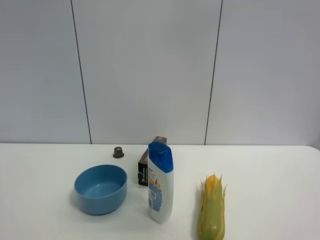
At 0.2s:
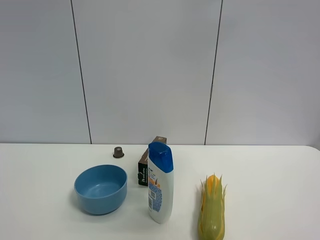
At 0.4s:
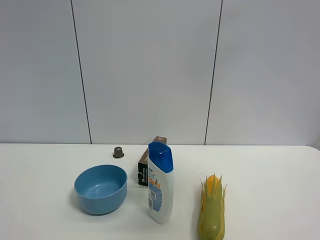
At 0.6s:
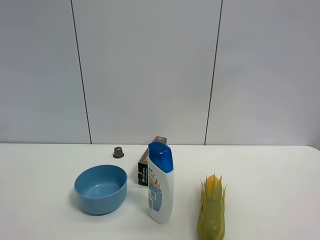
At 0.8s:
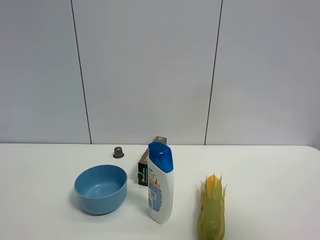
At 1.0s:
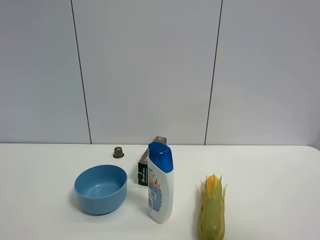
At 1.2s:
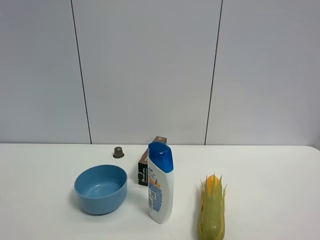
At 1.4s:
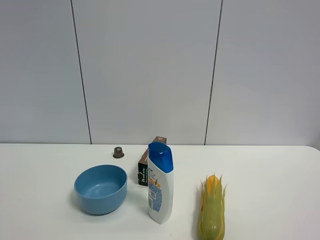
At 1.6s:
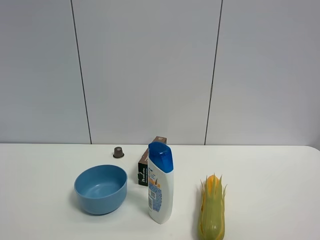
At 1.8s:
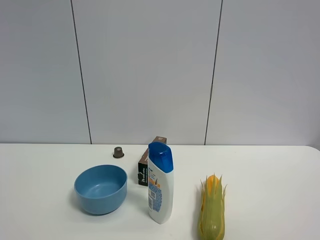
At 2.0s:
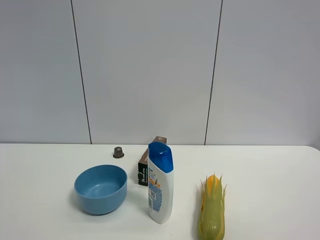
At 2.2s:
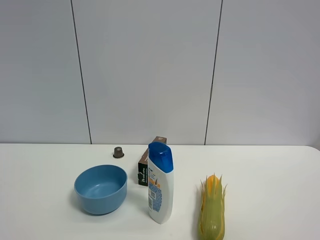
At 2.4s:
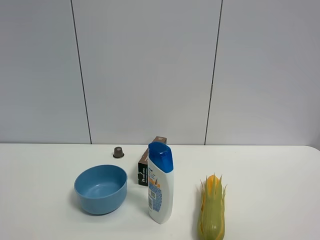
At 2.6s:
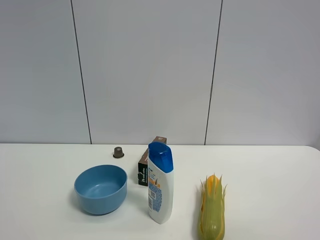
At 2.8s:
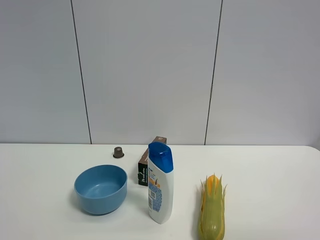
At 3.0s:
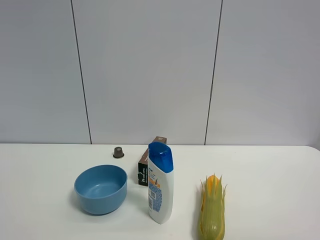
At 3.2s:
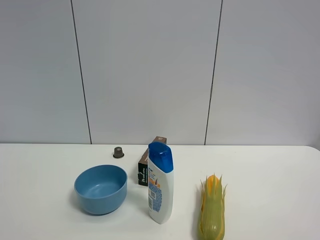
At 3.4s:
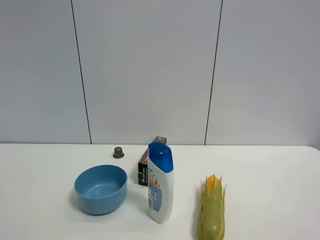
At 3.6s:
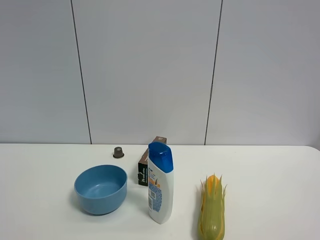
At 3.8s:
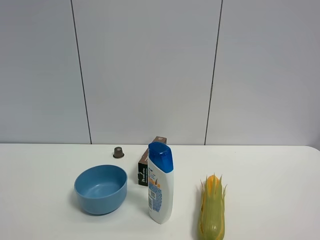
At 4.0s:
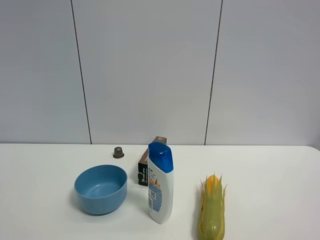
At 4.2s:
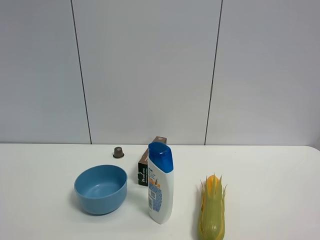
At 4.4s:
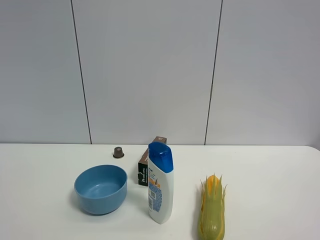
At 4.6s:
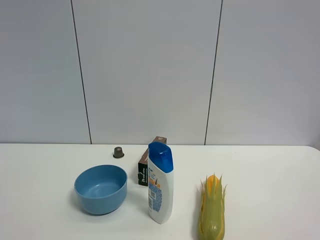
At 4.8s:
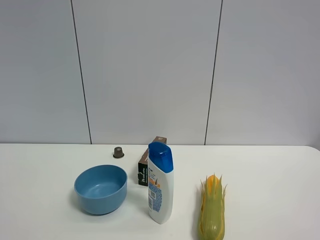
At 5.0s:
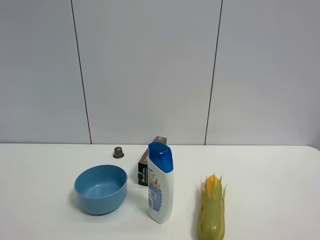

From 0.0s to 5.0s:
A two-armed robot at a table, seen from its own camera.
Task of the whole recording: the gripper move the object.
From 0.0s to 1.6s: The right gripper travels downward and backward by some 30 cm.

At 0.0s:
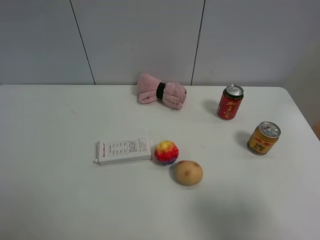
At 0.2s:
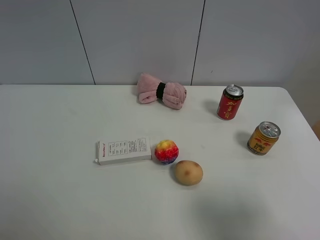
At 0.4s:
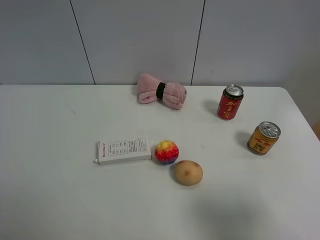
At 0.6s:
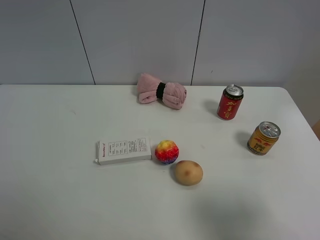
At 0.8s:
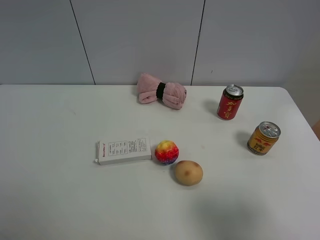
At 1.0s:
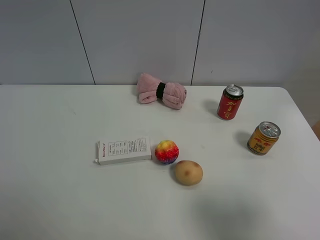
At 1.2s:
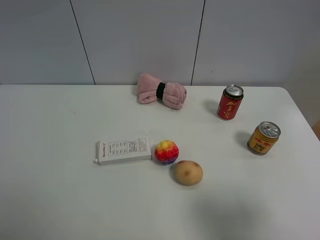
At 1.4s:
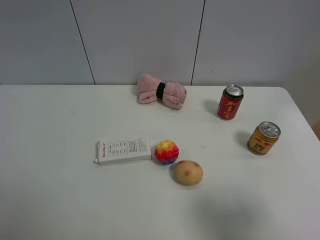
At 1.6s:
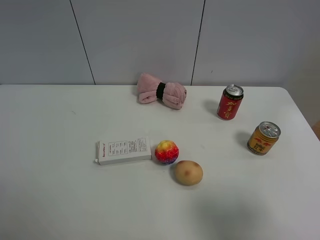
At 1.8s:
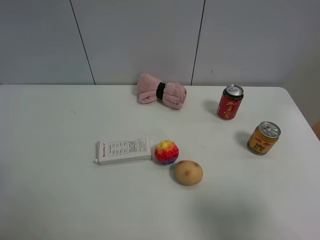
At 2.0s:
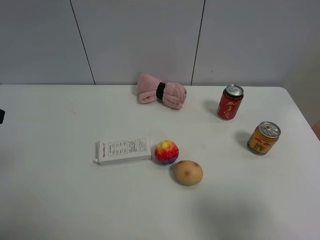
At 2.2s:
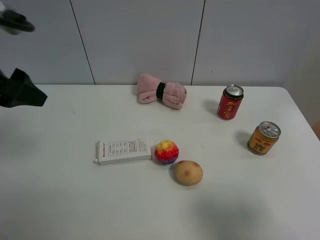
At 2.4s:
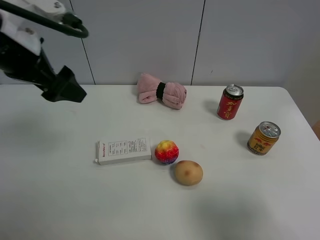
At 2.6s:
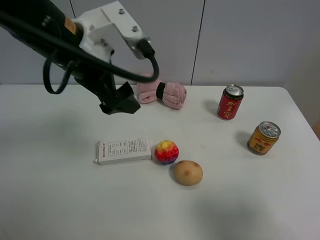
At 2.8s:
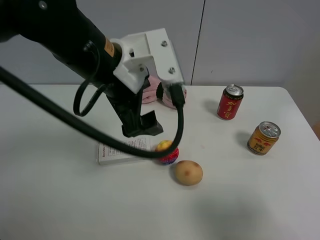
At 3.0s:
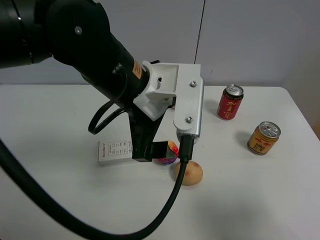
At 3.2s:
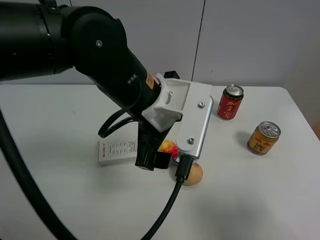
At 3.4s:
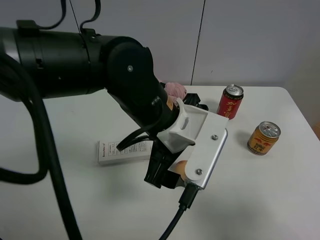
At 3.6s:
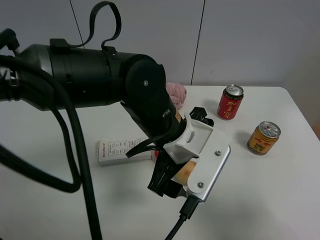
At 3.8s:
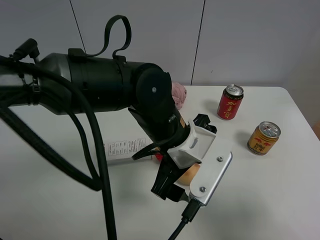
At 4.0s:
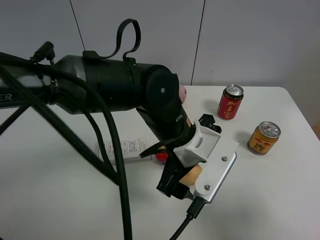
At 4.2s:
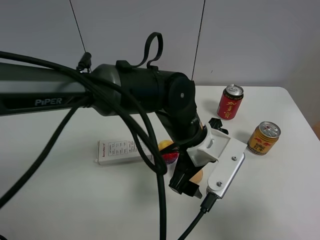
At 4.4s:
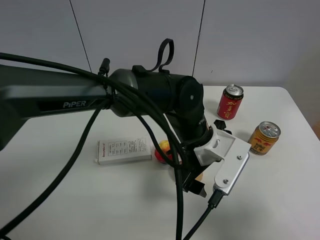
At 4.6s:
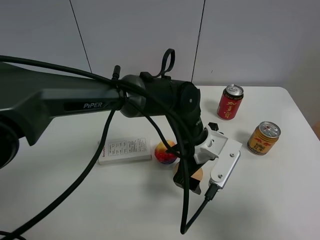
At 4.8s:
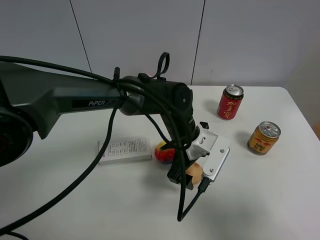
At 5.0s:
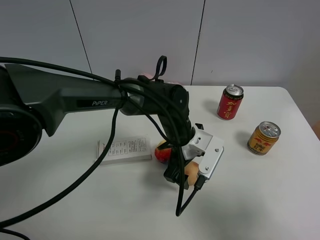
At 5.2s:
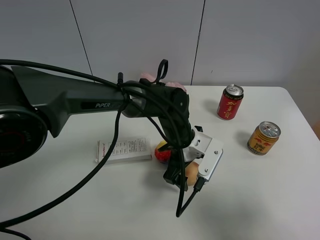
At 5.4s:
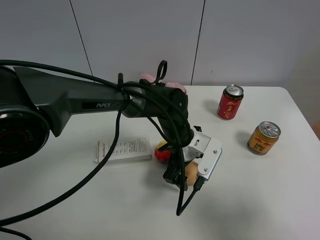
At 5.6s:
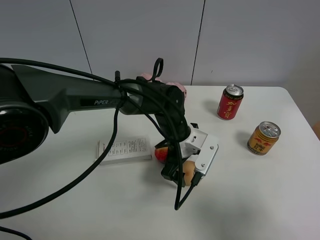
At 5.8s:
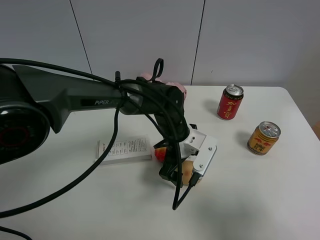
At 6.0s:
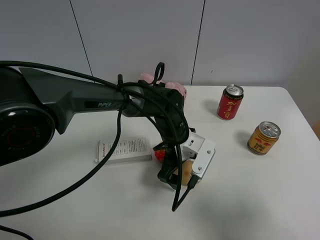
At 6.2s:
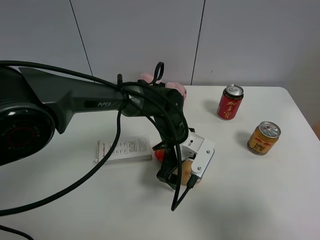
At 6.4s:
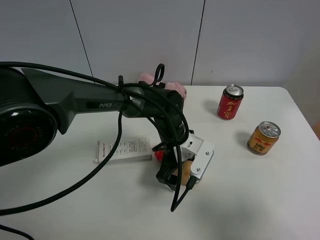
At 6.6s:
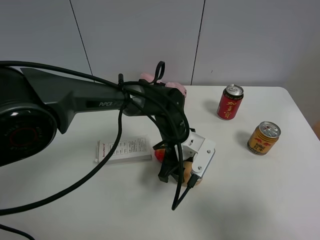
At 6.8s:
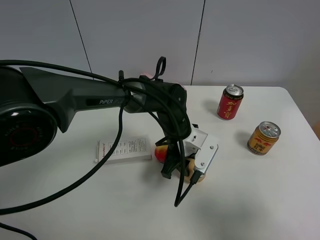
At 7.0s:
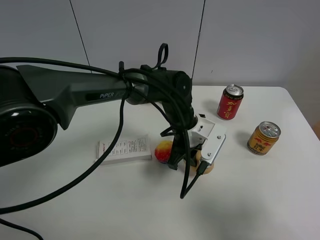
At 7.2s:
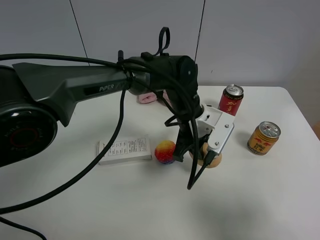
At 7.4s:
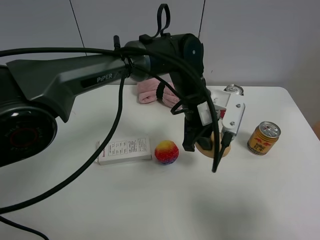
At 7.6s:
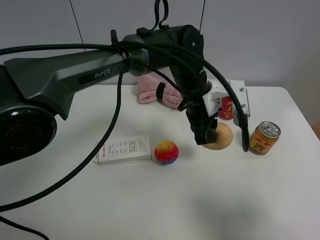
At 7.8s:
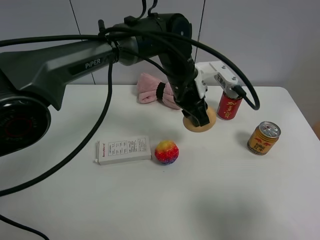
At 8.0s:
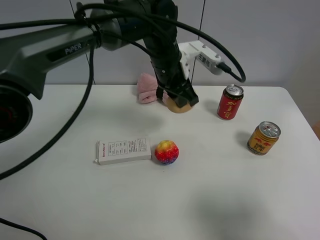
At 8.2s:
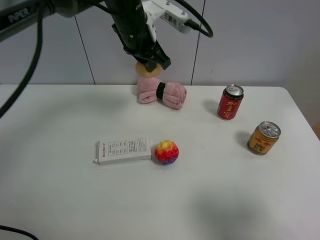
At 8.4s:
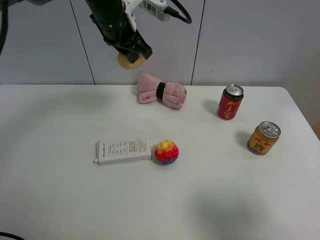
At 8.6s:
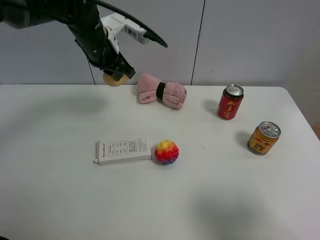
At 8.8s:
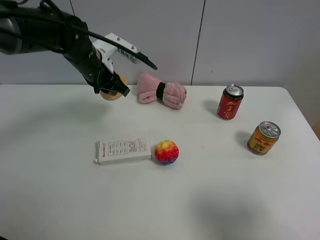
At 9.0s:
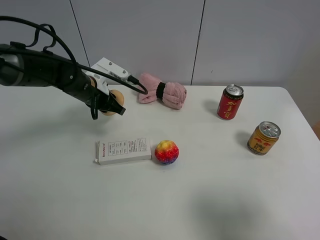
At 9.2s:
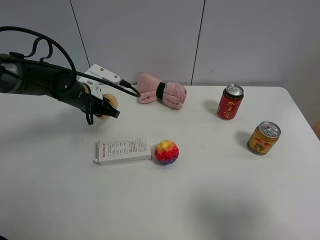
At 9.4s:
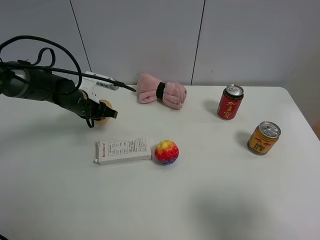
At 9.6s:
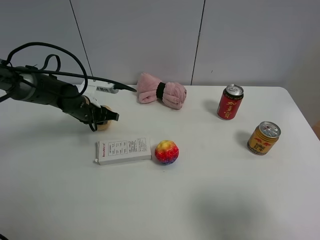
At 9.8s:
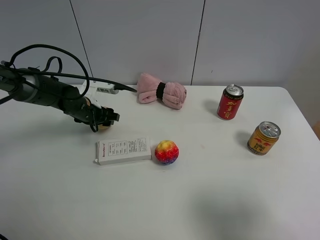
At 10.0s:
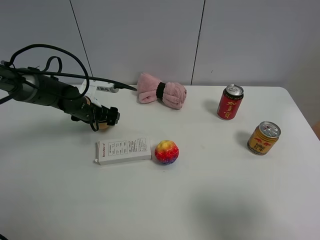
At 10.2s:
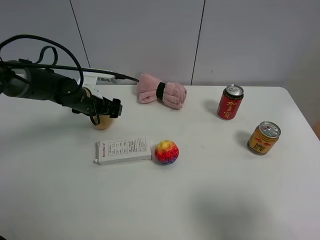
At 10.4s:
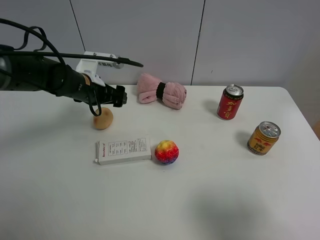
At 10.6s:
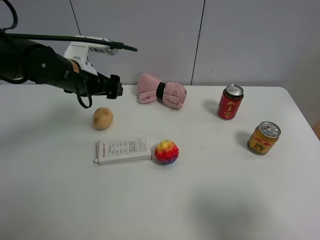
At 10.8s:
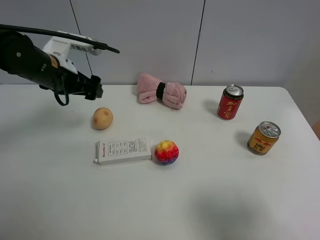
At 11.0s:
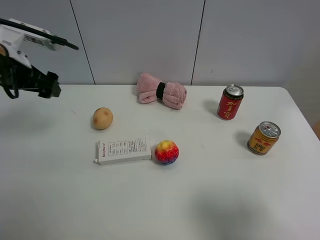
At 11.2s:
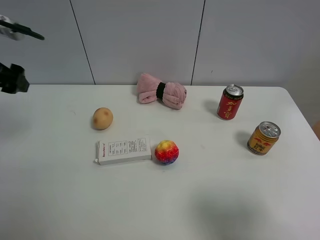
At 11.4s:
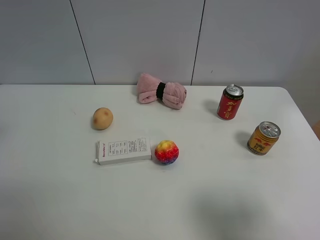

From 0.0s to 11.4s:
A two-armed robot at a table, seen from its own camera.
Task of the whole recording: the gripper move the object.
Step, from 0.0s to 6.6s: Grasp the egg yolk pastry with the left gripper.
Step, from 6.8s to 10.8s: Place the egg yolk pastry on the table with the left gripper.
From 0.0s to 1.4s: Neither gripper changes place.
From 1.4s to 2.8s: The left gripper moves to the right and forward, roughly 35 cm.
From 2.8s to 4.2s: The left gripper goes about 20 cm downward and to the right.
From 4.2s to 5.6s: The left gripper moves downward and forward, about 10 cm.
From 5.6s to 7.2s: The left gripper travels upward by about 5 cm, and closes.
From 7.2s to 8.6s: The left gripper travels to the left, upward and forward by approximately 25 cm.
From 8.6s to 10.0s: The left gripper is displaced downward and to the left by approximately 20 cm, and opens up.
From 10.0s to 11.4s: The left gripper moves upward, backward and to the left, about 35 cm.

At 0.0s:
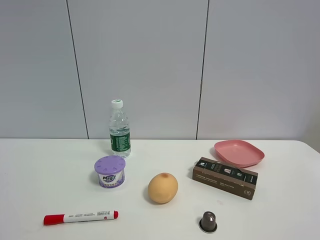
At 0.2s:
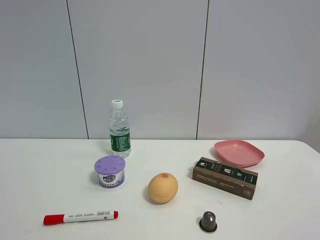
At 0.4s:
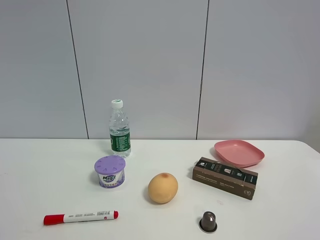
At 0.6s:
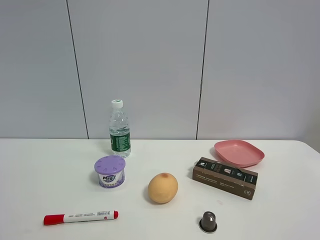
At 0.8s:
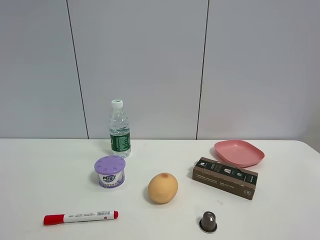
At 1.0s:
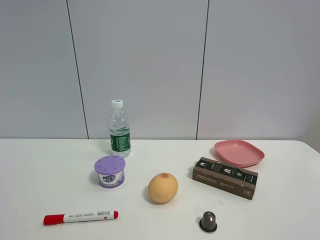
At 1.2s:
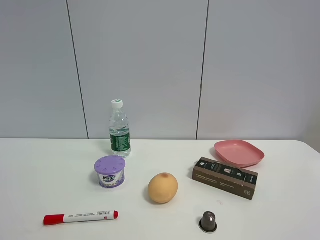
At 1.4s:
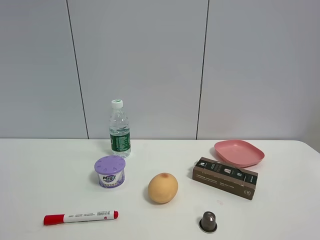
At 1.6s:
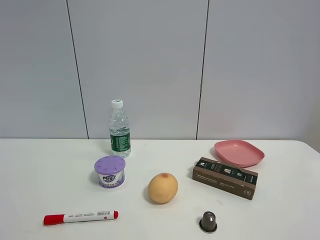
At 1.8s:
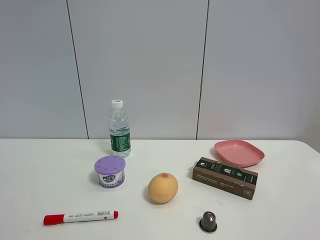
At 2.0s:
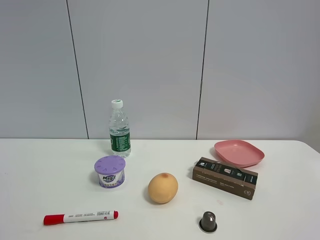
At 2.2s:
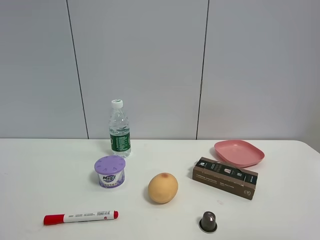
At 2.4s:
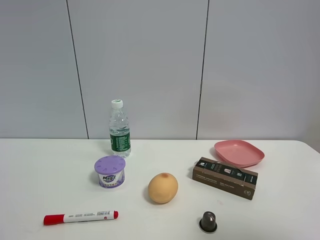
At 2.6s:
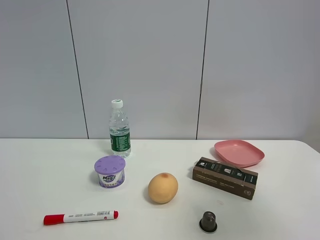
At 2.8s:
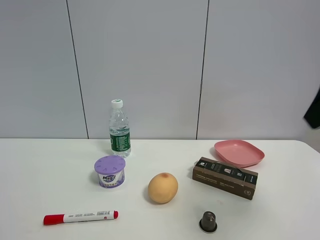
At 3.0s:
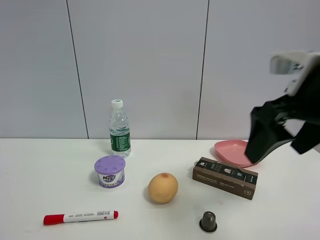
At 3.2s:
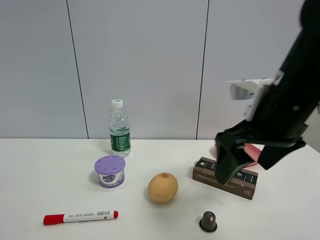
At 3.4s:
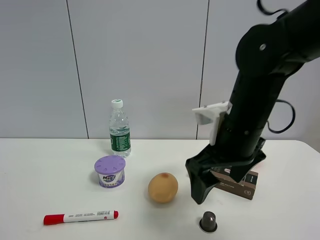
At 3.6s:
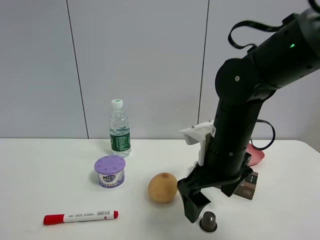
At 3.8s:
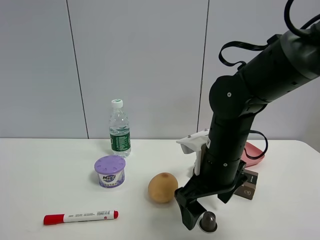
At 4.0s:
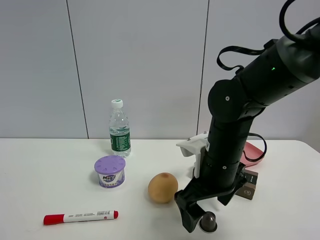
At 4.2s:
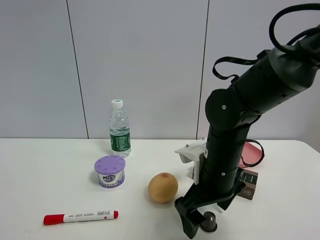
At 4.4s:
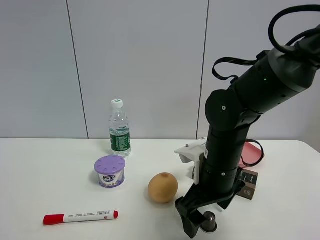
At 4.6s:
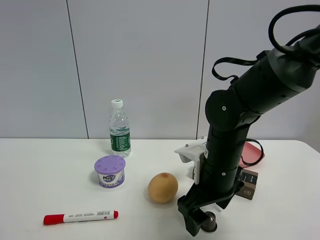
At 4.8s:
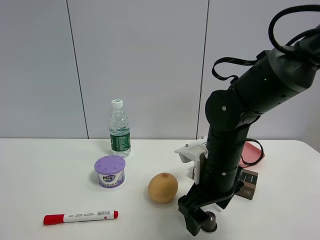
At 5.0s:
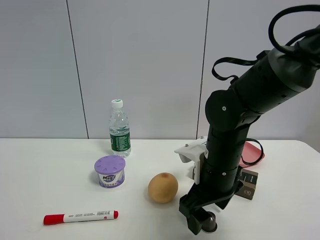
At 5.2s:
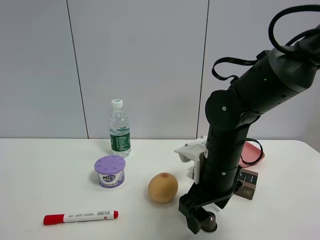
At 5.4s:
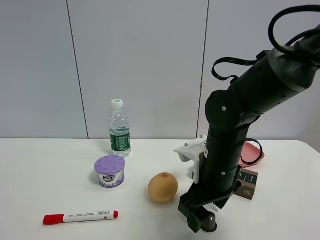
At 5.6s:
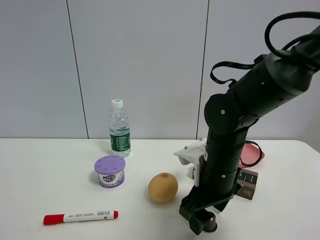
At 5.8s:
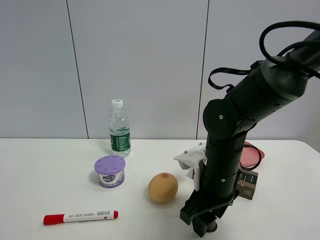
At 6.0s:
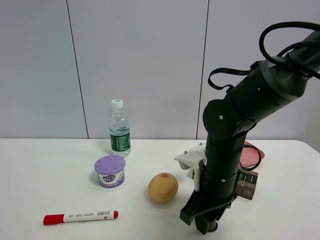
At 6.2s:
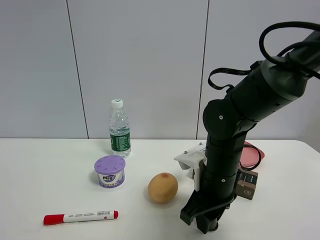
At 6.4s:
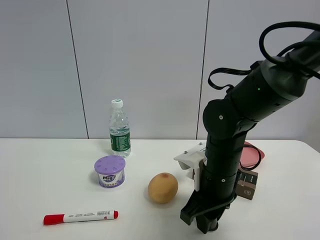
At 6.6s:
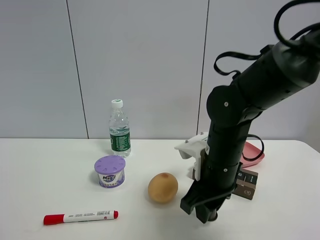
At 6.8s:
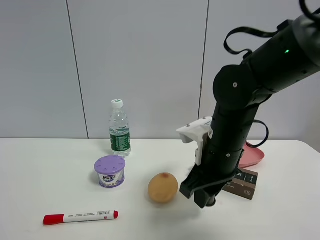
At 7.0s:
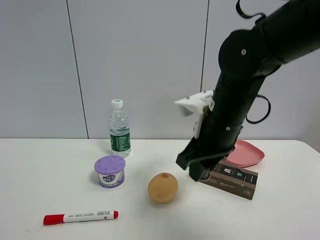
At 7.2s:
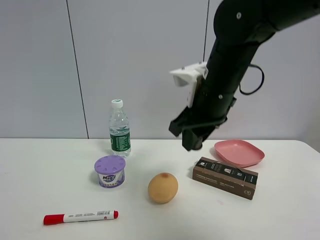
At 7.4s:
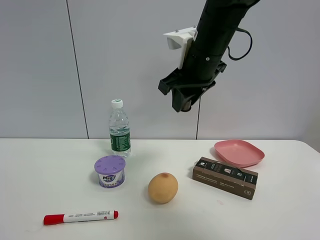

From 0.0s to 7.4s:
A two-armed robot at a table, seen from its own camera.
Task of the whole recording: the gripper move the object.
Step, from 0.0s to 6.0s: Grasp the coffee capsule with the right gripper.
From 0.0s to 1.4s: Both grippers stay about where they are.
From 1.4s to 3.0s: The right gripper heads forward and to the left, covering some 25 cm.
From 3.0s to 4.4s: The right gripper goes approximately 15 cm downward and to the left.
From 4.4s to 6.0s: The right gripper closes.
From 6.0s to 7.4s: The right gripper travels upward by some 20 cm.
